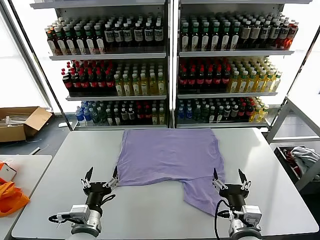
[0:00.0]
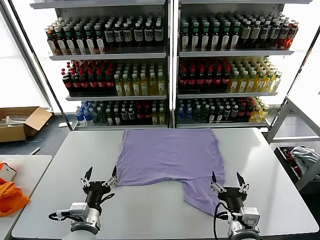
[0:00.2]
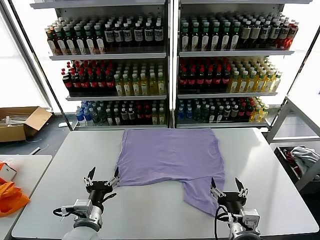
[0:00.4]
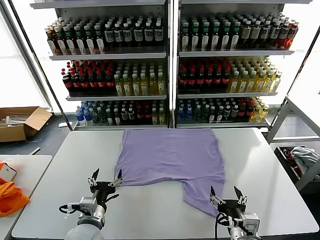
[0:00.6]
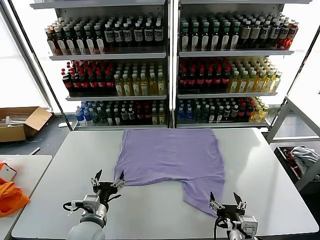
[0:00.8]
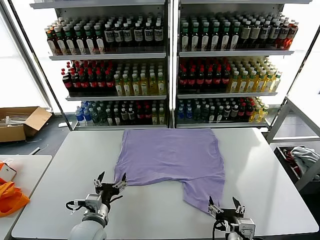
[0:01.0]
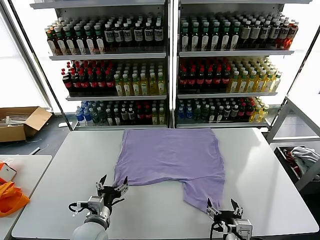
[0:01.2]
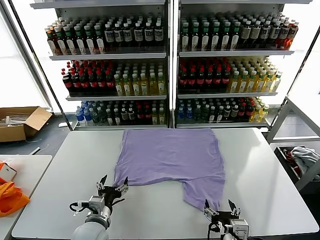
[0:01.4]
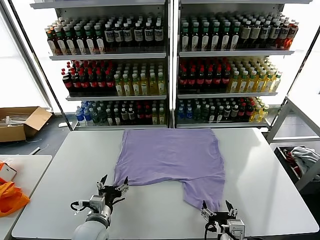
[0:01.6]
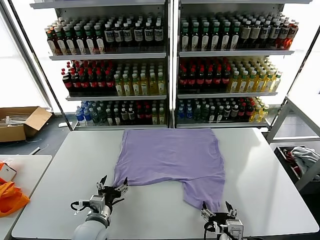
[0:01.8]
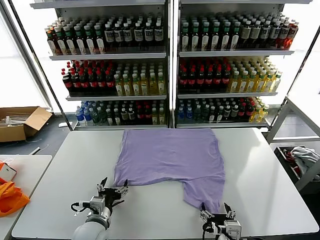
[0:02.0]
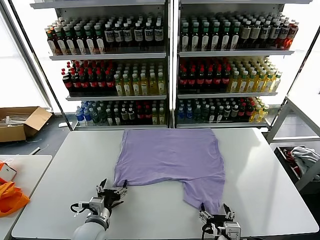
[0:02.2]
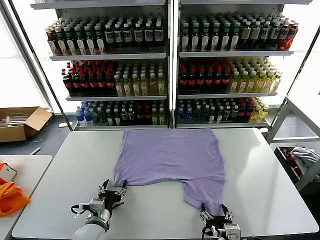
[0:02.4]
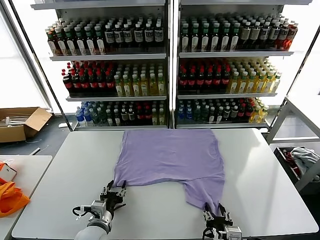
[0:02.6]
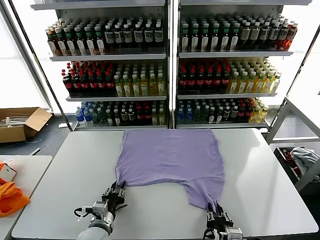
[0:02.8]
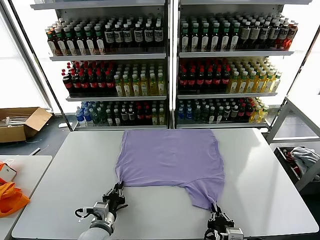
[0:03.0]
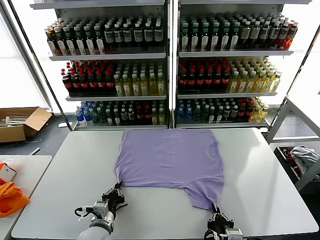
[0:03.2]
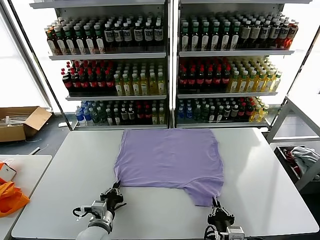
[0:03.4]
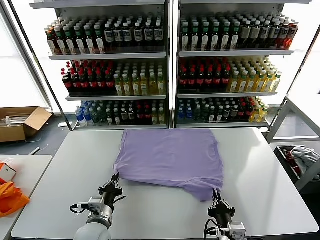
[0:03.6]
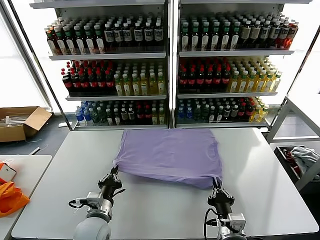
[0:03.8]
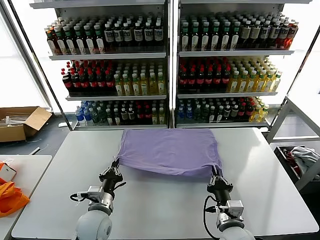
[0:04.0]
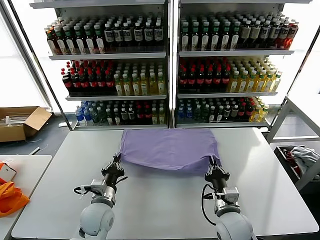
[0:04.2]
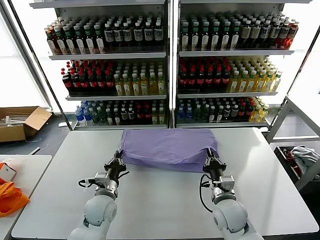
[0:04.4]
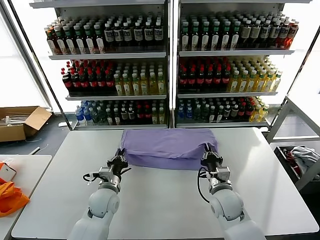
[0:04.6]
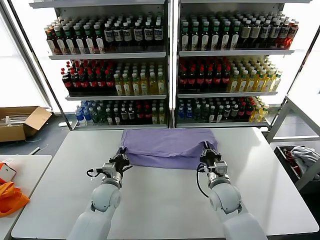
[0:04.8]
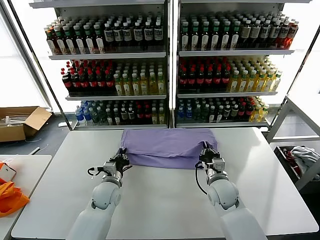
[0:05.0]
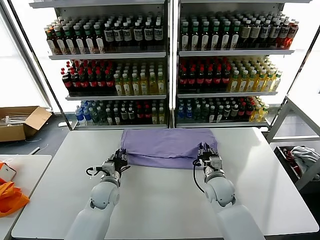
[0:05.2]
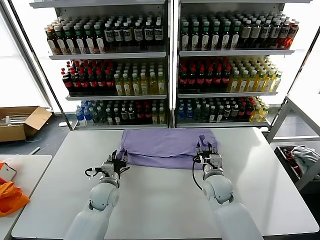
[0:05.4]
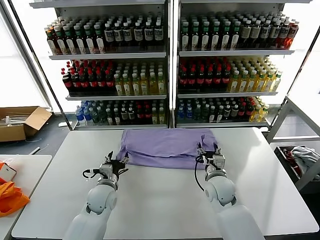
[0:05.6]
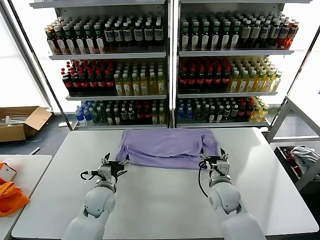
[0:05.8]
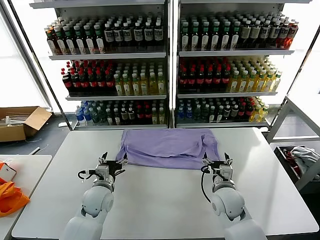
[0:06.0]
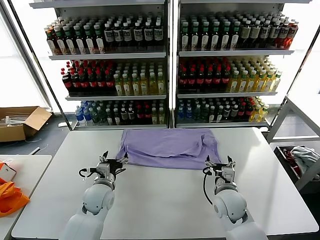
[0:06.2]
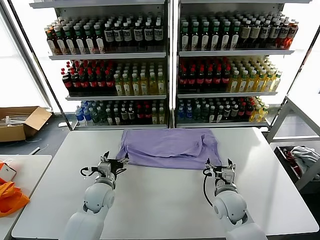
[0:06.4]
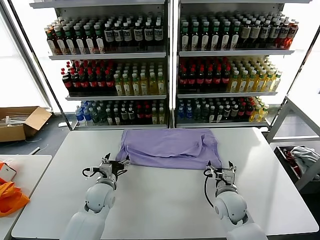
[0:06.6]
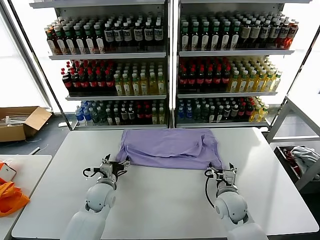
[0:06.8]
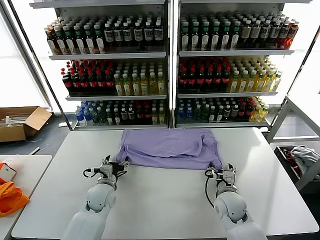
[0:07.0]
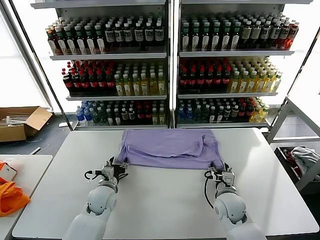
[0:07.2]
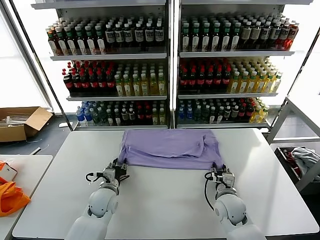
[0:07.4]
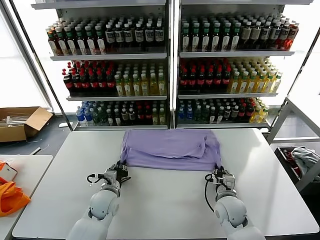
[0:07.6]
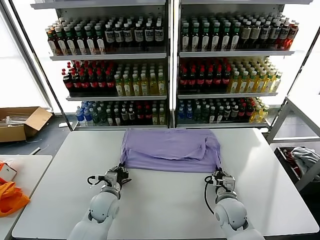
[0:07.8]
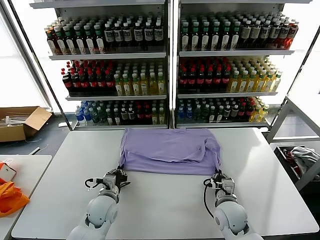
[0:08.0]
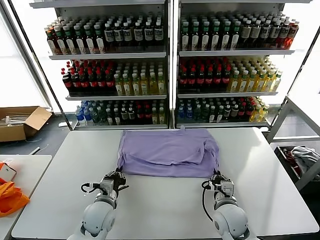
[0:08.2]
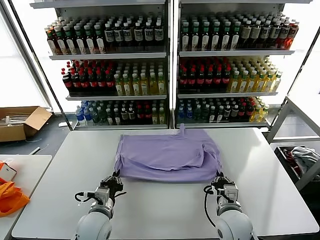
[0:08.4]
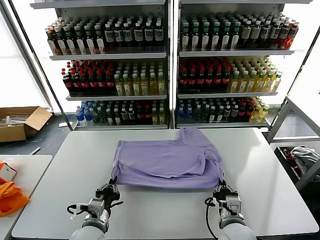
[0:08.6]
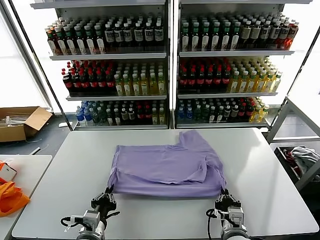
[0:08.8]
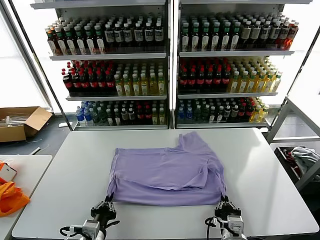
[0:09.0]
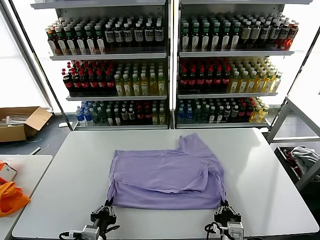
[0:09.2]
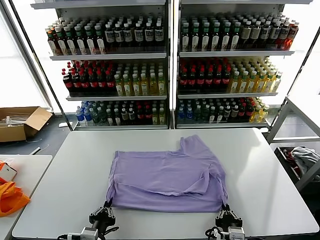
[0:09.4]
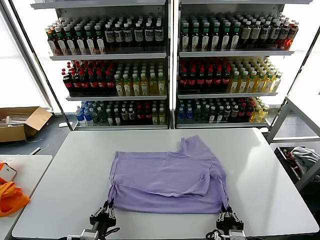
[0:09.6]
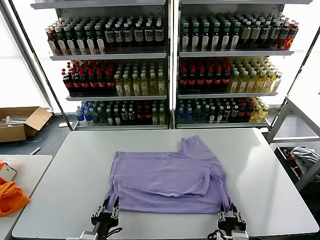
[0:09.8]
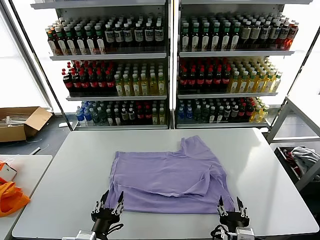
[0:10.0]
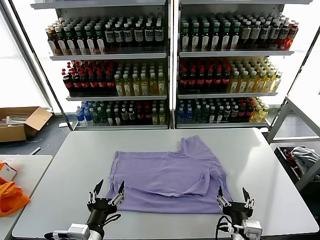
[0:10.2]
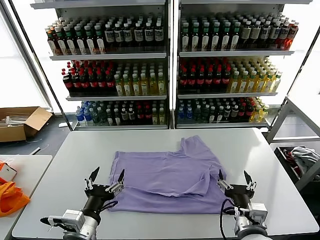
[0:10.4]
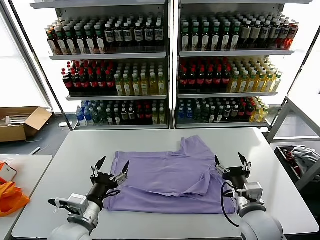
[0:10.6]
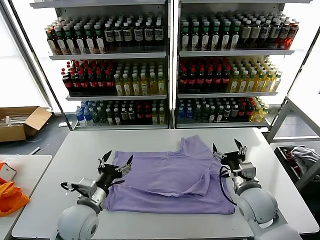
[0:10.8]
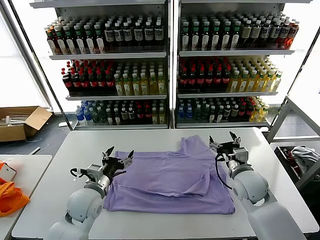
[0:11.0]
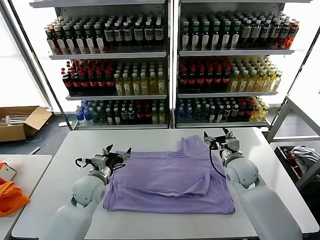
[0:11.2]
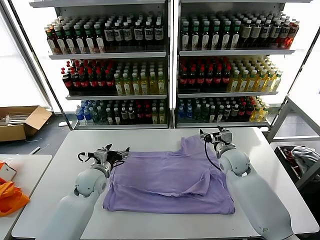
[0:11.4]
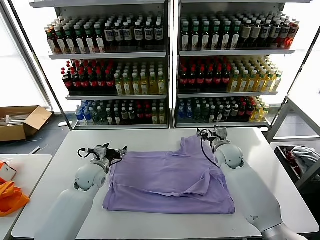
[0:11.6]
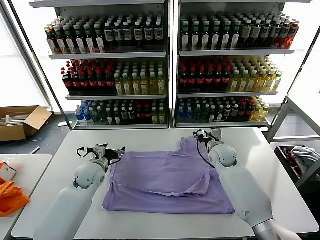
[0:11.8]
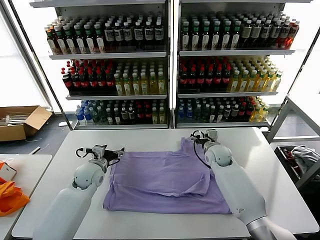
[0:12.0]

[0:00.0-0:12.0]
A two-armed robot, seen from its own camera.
Task of the whole recording: fold and organize the clothes.
Step, 0:00.0 to 0:03.4: use both grippers simultaneously to clamp the lower edge of the clothing fabric.
Step, 0:03.6 to 0:05.4: use both grippers to drag the lower edge of the fabric forward and fold it over the upper edge.
Step, 0:05.6 to 0:09.8: Drag the clothes downward with both gripper.
0:01.6 to 0:03.0: The right gripper closes, while the left gripper closes up.
0:03.0 to 0:04.4: The right gripper shifts some 20 cm forward, while the left gripper shifts roughly 10 cm forward.
0:04.4 to 0:06.0: The left gripper opens; the right gripper opens its fingers.
0:06.0 to 0:07.6: The right gripper closes. Meanwhile the left gripper closes up.
0:07.6 to 0:09.0: The grippers both shift backward by some 15 cm.
0:09.0 to 0:10.4: The grippers both shift upward by about 10 cm. The left gripper opens. Meanwhile the right gripper opens its fingers.
0:10.4 to 0:12.0: The two grippers go about 30 cm forward.

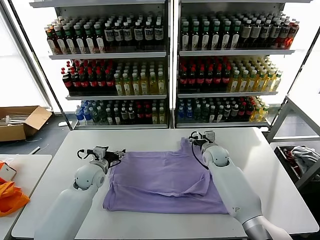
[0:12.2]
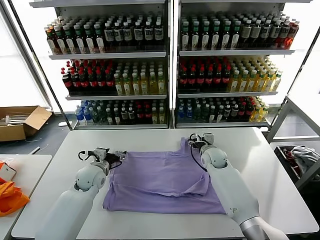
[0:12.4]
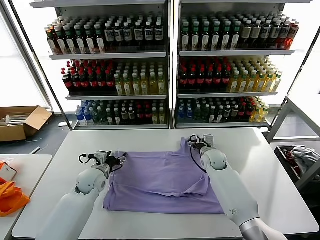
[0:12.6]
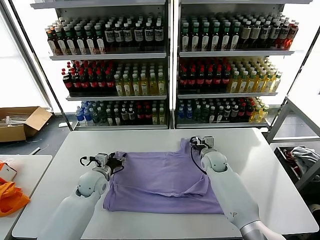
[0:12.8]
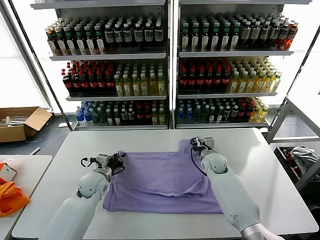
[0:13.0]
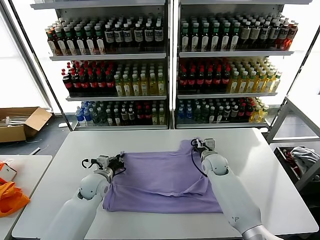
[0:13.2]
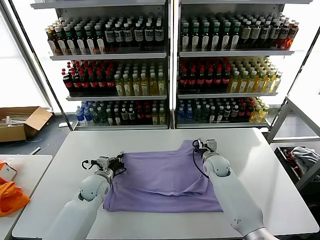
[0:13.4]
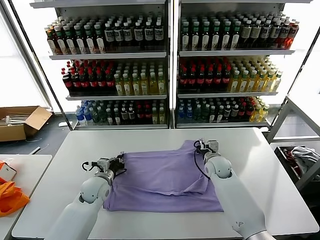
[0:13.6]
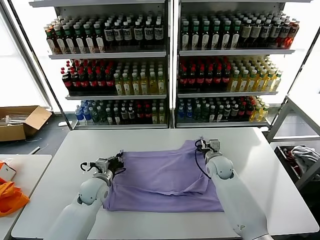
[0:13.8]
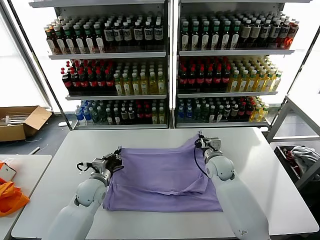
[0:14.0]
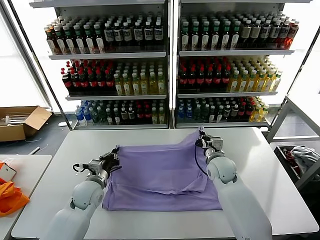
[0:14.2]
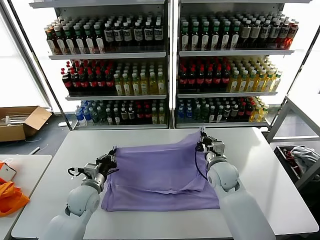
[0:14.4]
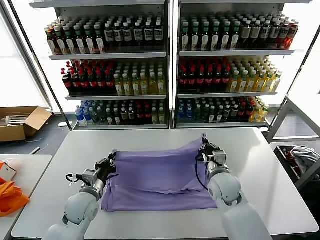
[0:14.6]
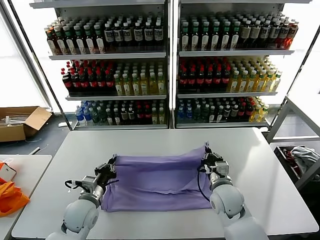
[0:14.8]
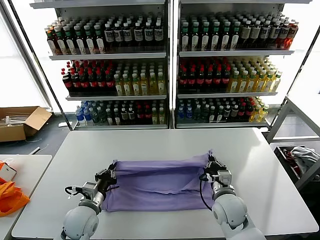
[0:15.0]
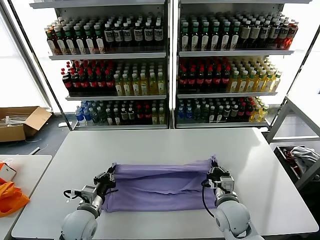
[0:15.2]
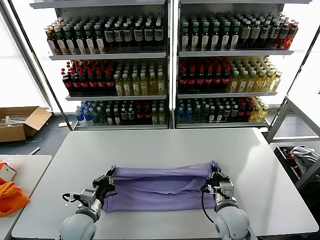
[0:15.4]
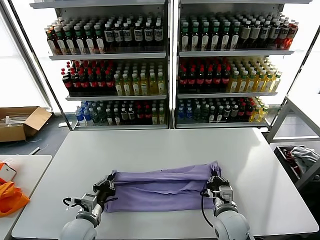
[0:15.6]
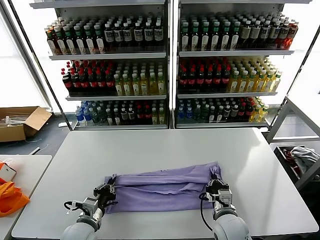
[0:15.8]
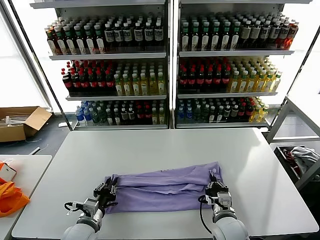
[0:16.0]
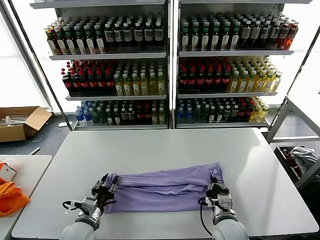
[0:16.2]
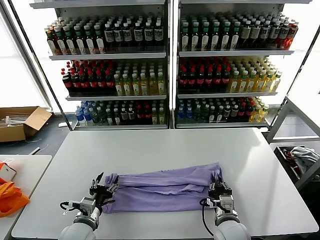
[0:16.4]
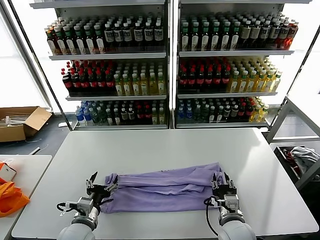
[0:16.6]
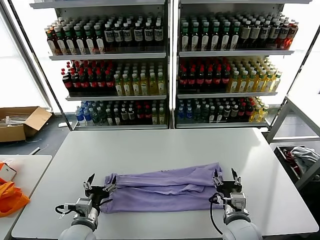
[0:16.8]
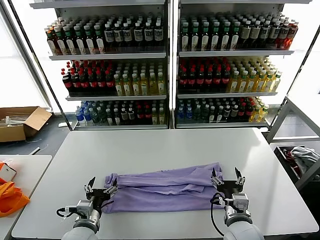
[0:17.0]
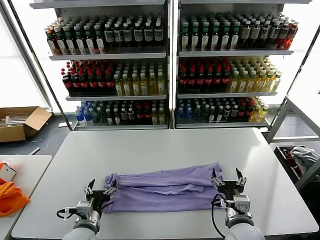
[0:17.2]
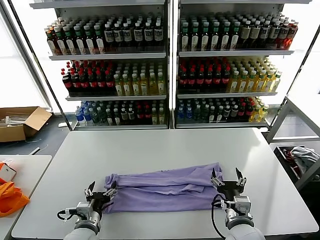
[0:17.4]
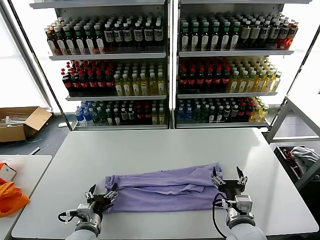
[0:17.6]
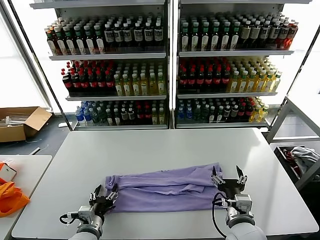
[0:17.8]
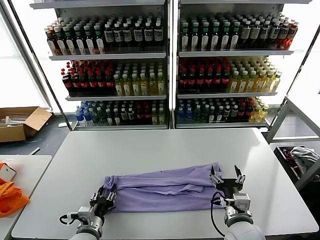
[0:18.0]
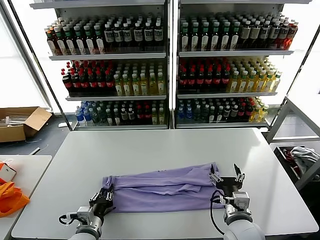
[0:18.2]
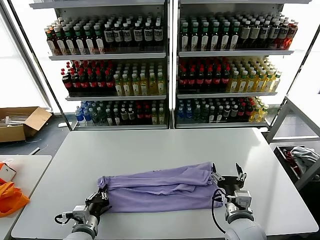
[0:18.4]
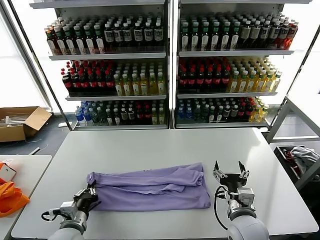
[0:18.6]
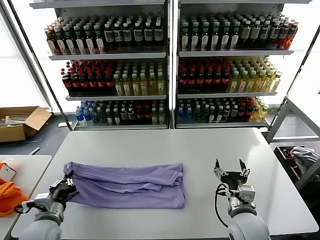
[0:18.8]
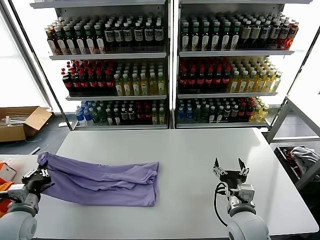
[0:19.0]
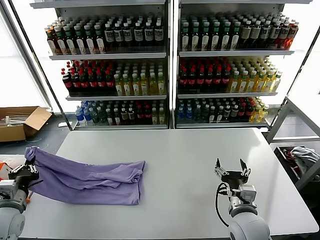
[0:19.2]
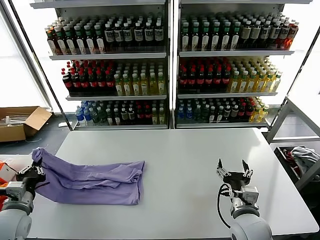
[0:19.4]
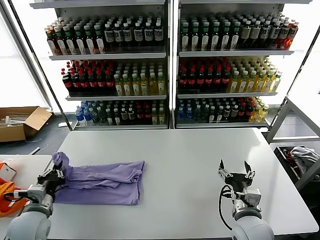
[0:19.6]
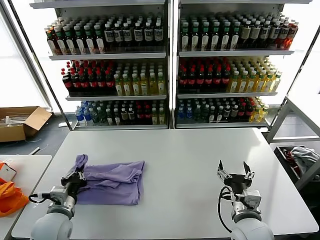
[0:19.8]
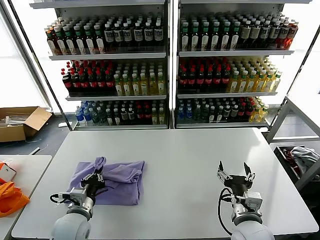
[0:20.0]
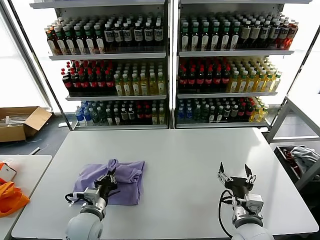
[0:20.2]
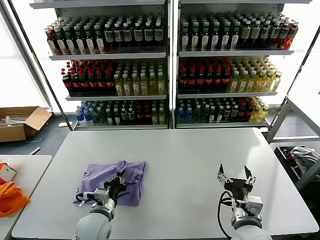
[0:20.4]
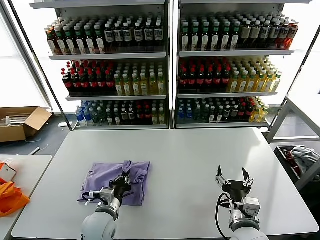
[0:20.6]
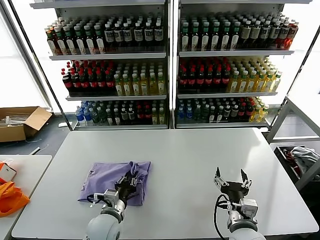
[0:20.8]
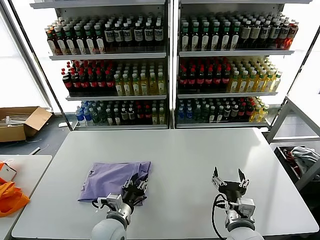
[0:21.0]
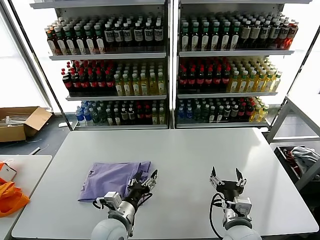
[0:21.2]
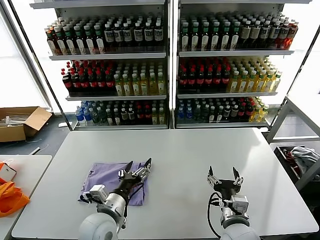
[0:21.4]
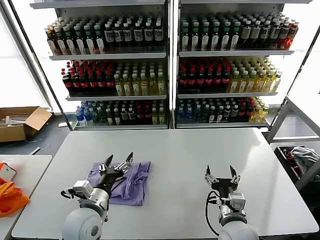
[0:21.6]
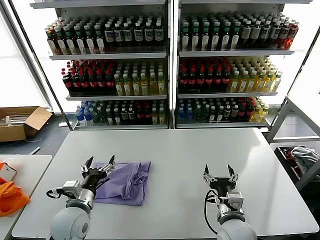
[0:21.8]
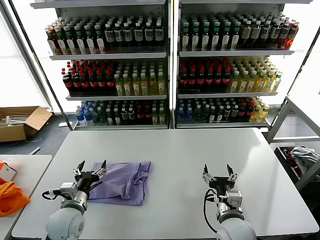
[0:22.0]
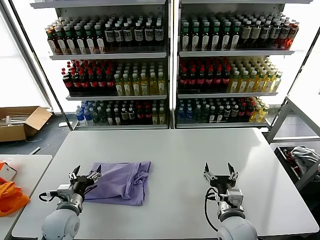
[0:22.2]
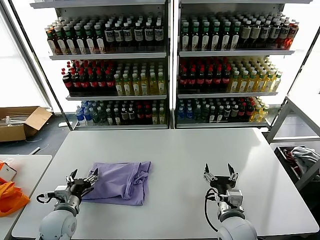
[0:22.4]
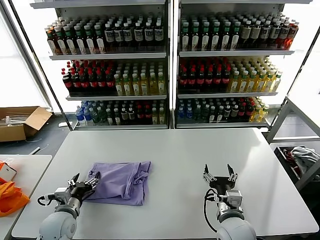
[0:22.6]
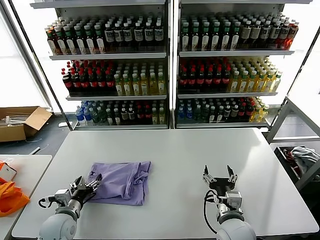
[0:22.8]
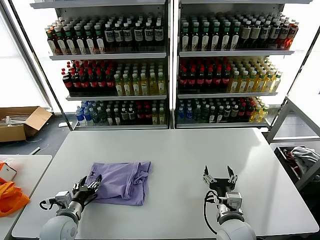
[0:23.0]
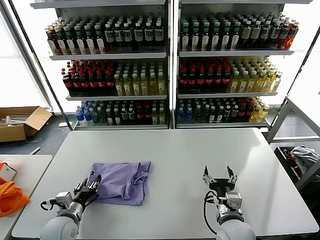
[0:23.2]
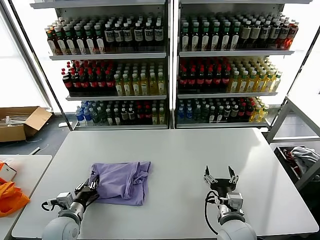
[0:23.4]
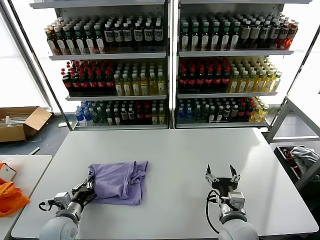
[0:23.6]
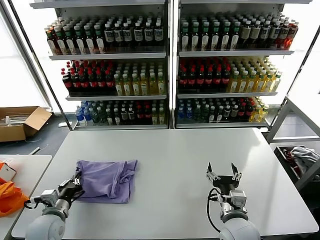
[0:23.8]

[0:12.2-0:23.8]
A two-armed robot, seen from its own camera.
Task of the whole recording: fold and organize the clothes.
Step, 0:13.6 to 0:16.4: use both grippers to drag the upper edge of the fabric backward and fold it over the lower edge.
Step, 0:16.6 to 0:18.4: use the left gripper to clamp the left edge of the fabric.
Step, 0:18.6 to 0:21.0: use the left gripper to drag the left edge of the fabric to the left and folds it over the right edge.
0:12.2 to 0:13.6: The right gripper closes its fingers. Meanwhile the left gripper shifts by roughly 5 cm, and closes.
0:13.6 to 0:15.0: The left gripper shifts about 10 cm backward. The right gripper moves backward, some 20 cm.
0:15.0 to 0:16.6: Both grippers move backward, some 5 cm. The right gripper opens up, while the left gripper opens up.
0:16.6 to 0:18.0: The right gripper opens up.
0:18.0 to 0:19.4: The left gripper travels to the left and upward by some 20 cm, and closes its fingers.
0:19.4 to 0:21.0: The left gripper is displaced to the right by about 25 cm, and opens.
0:21.0 to 0:22.4: The left gripper moves to the left, roughly 15 cm, and opens its fingers.
0:22.4 to 0:23.8: The left gripper closes up.
